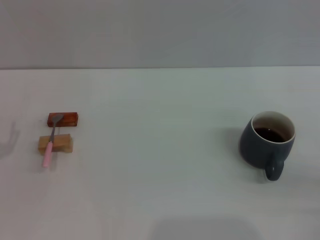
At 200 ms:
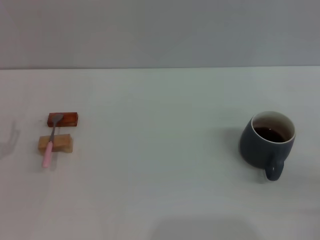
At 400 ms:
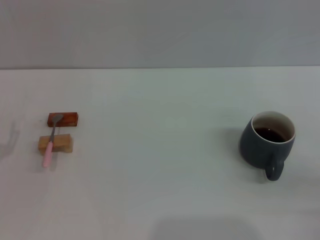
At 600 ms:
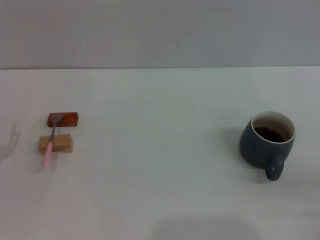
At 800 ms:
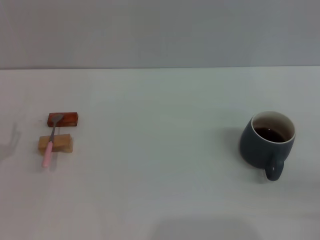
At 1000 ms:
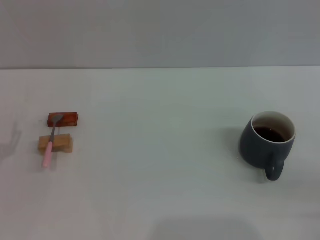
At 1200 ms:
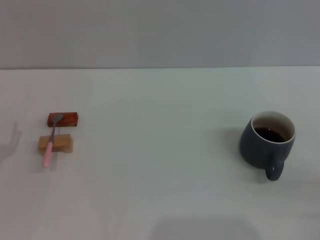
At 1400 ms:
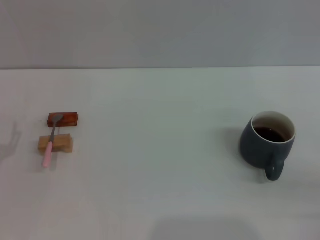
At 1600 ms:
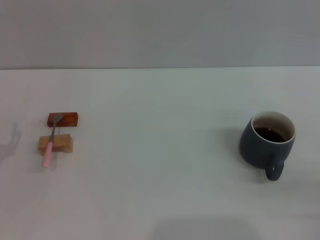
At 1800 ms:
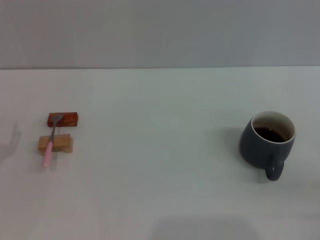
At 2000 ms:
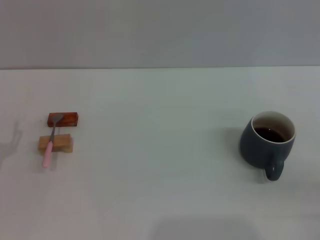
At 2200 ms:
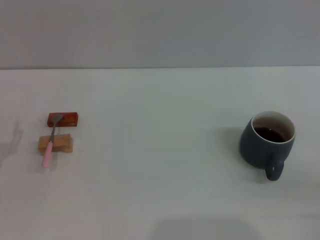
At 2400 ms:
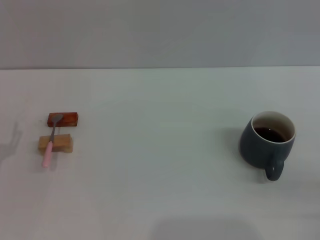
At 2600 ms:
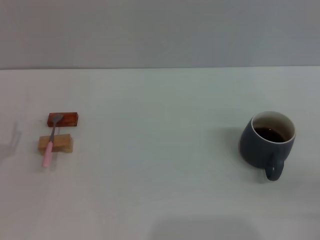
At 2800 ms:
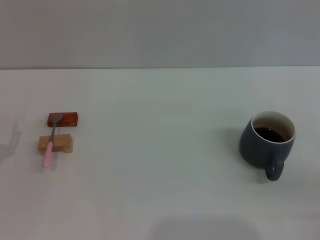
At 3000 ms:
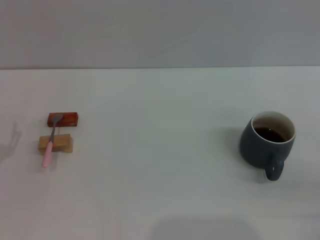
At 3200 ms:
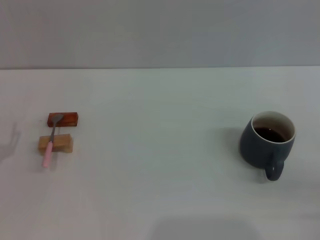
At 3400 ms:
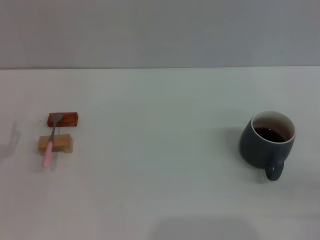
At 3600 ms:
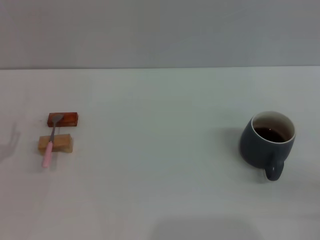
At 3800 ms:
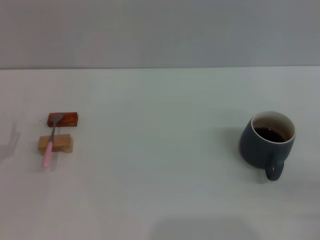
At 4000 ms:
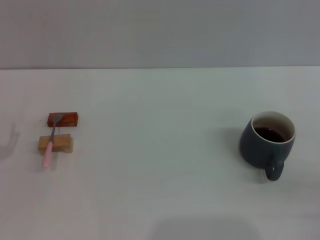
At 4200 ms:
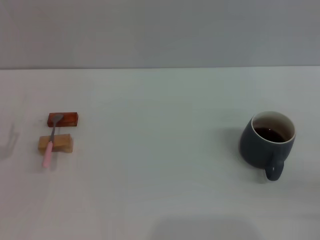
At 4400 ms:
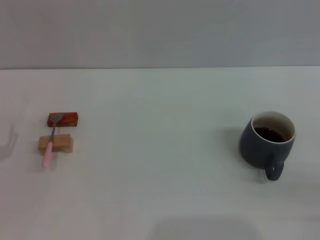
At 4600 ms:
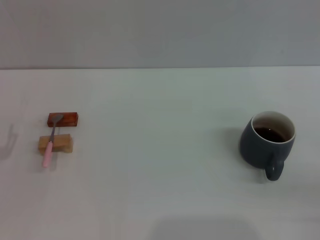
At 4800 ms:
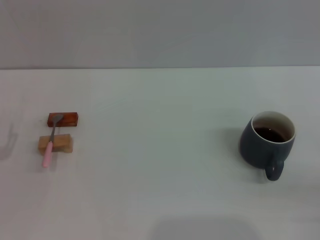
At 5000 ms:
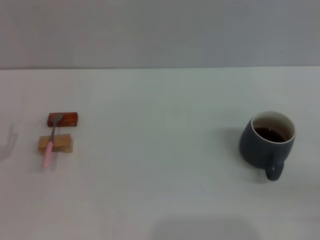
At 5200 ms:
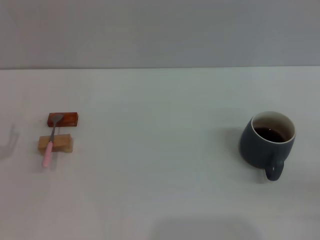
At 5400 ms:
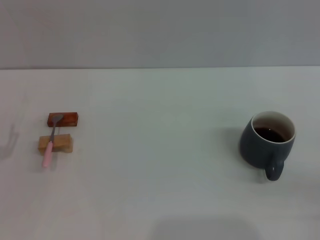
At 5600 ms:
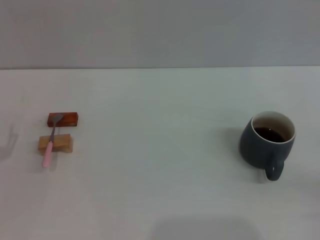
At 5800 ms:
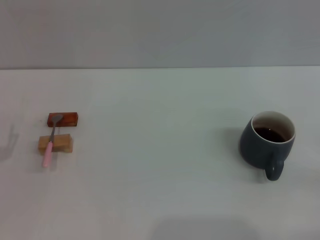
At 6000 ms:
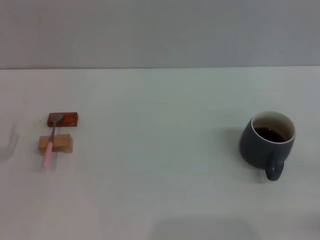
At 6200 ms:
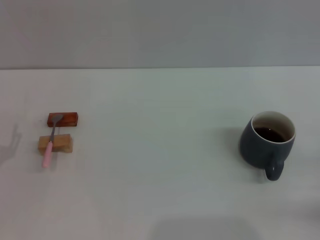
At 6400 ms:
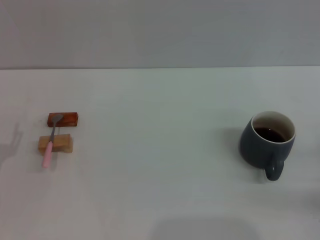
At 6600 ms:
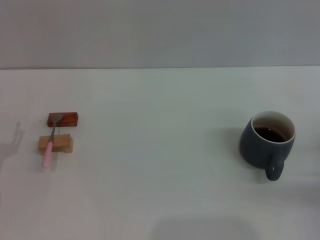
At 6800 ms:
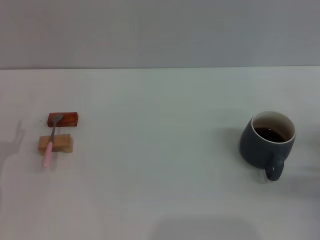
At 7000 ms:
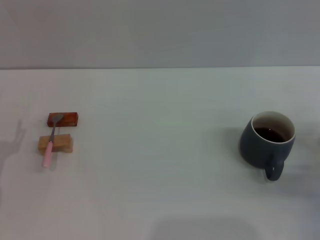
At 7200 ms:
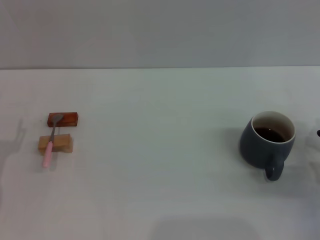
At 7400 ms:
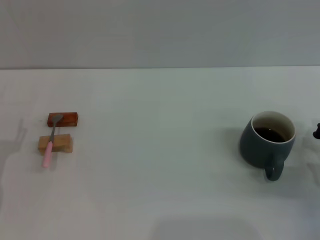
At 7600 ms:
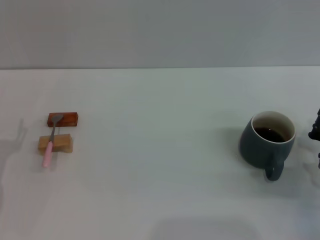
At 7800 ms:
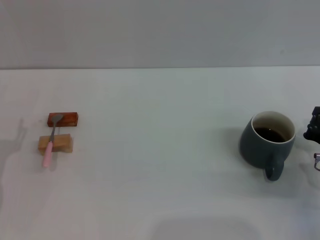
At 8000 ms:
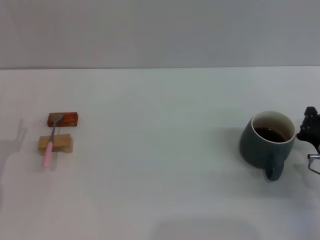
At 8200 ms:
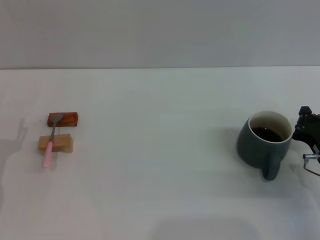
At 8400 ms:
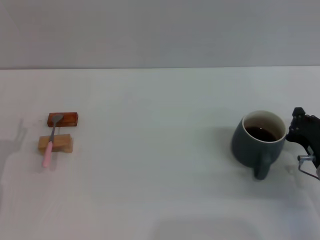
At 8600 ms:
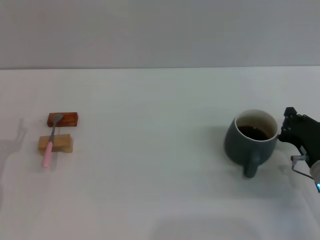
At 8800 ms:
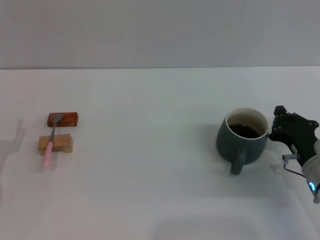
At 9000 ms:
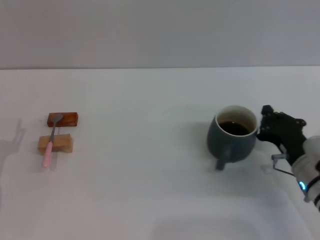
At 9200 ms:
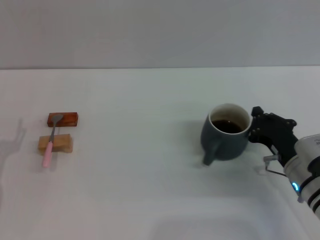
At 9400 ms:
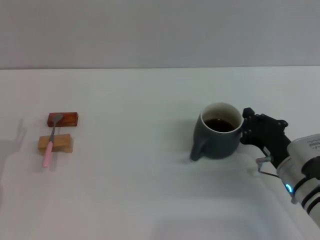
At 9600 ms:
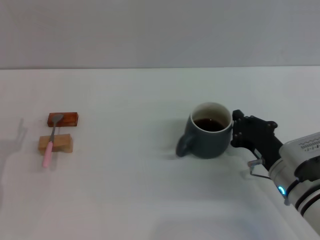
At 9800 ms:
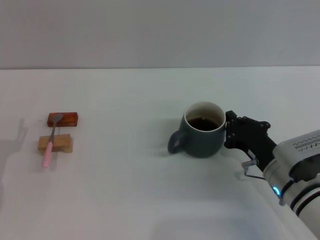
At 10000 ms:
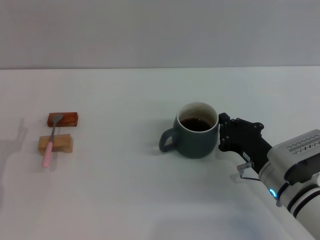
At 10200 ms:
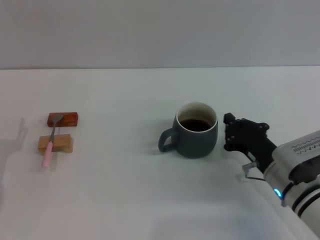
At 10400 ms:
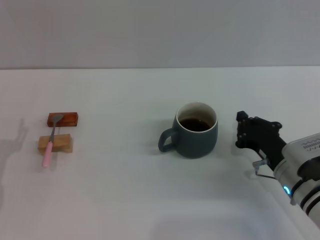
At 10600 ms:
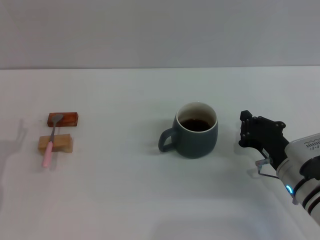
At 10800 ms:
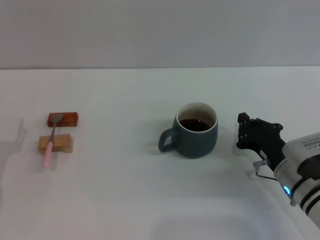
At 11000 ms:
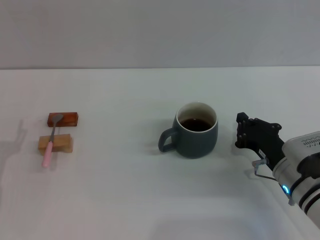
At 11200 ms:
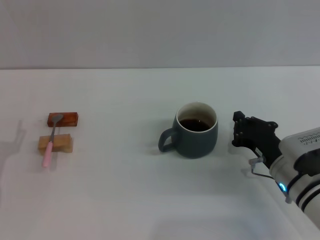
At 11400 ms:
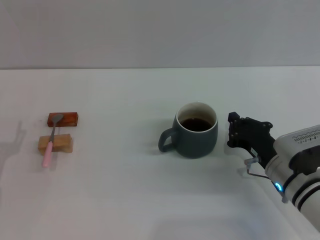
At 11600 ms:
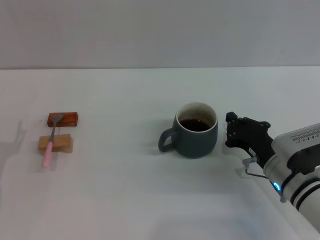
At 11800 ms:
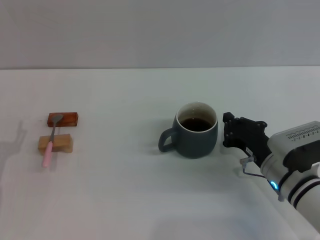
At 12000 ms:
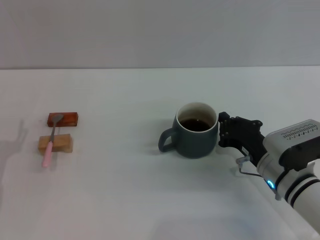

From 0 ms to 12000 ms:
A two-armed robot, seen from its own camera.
Task of the whole recording: Move the grey cup to the center, lift the pink spoon, stir it three times in the cup, and put the spoon into the cup.
From 0 ms to 4400 ms: Both grippers stay about where they are.
From 6000 ms to 7600 ms: The right gripper moves to the left and forward, about 10 cm.
From 7600 ms to 9000 ms: The right gripper travels to the left by approximately 5 cm.
From 9000 ms to 12000 ms: The grippers move only a little.

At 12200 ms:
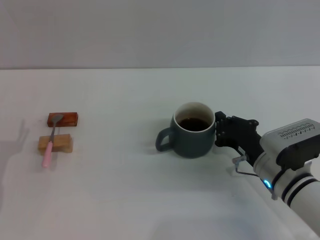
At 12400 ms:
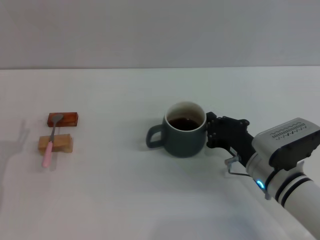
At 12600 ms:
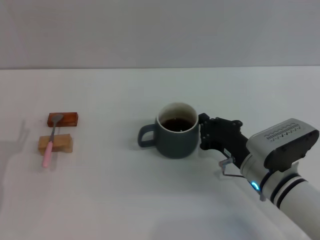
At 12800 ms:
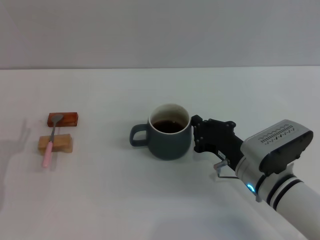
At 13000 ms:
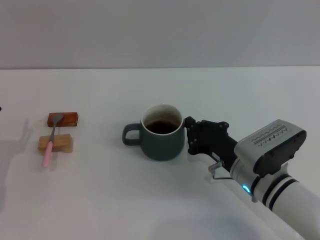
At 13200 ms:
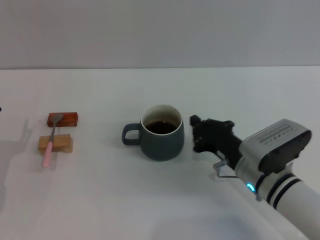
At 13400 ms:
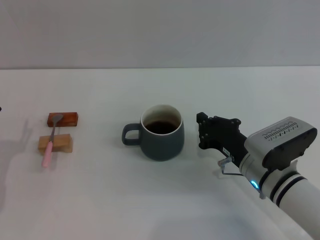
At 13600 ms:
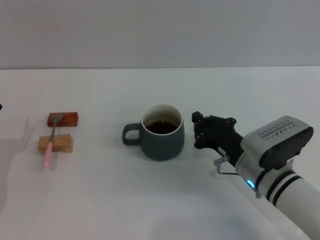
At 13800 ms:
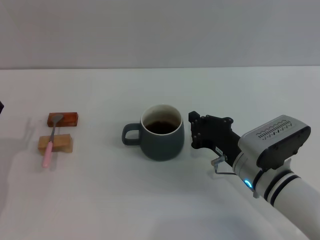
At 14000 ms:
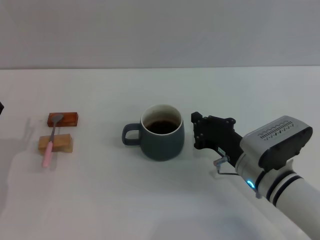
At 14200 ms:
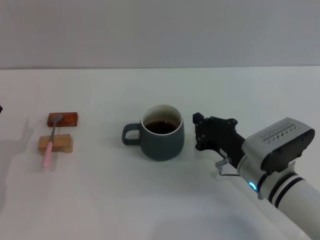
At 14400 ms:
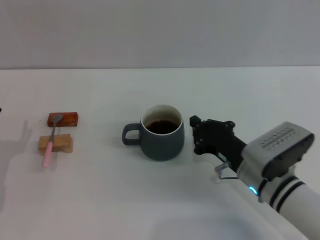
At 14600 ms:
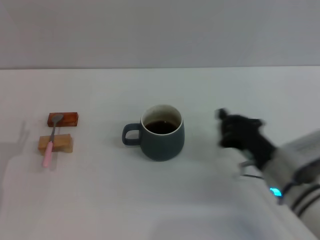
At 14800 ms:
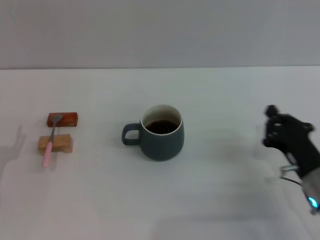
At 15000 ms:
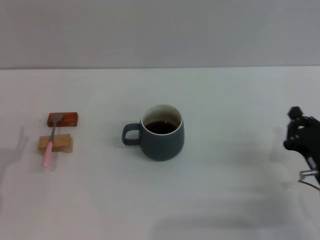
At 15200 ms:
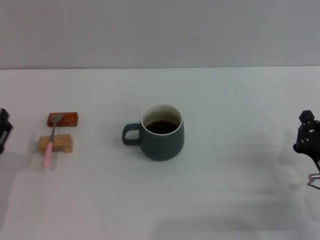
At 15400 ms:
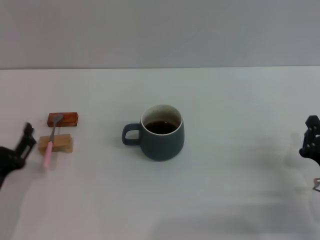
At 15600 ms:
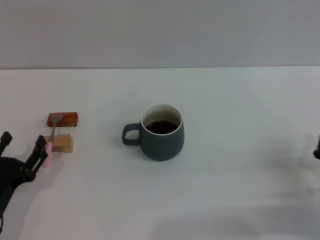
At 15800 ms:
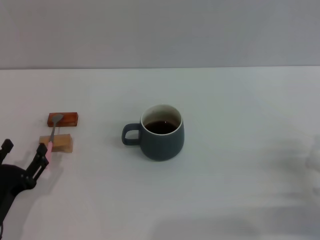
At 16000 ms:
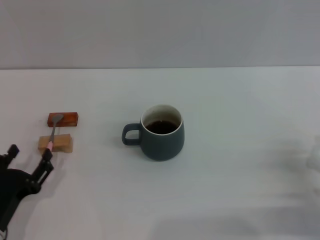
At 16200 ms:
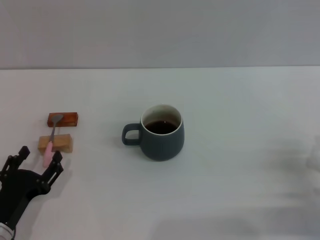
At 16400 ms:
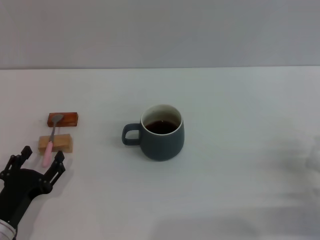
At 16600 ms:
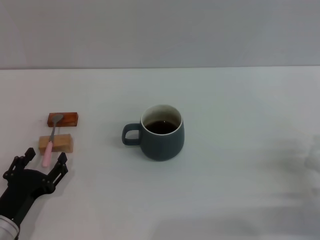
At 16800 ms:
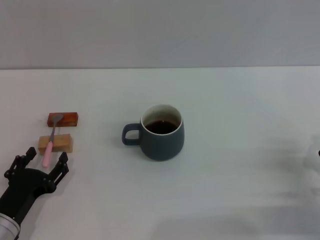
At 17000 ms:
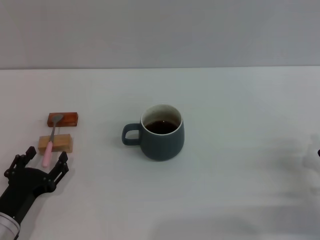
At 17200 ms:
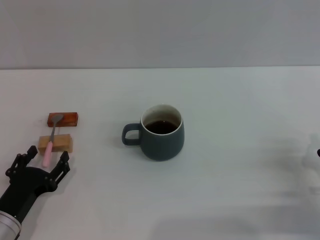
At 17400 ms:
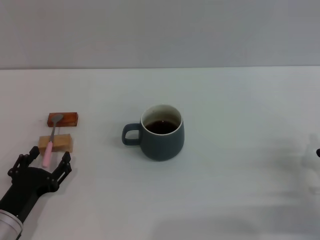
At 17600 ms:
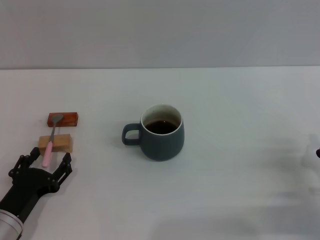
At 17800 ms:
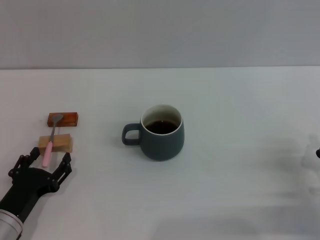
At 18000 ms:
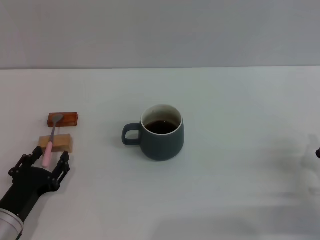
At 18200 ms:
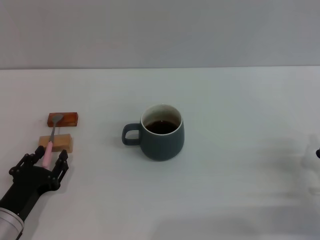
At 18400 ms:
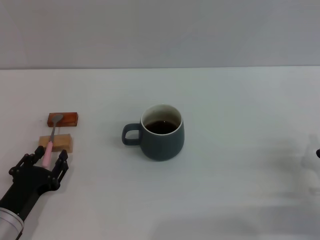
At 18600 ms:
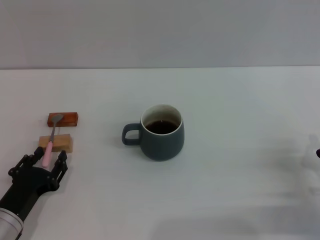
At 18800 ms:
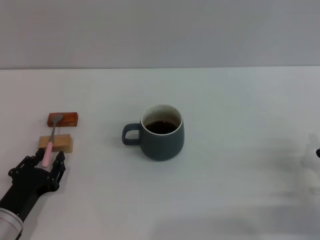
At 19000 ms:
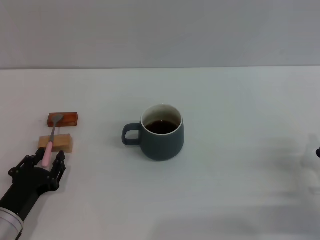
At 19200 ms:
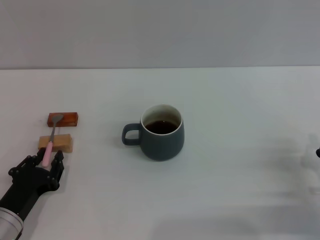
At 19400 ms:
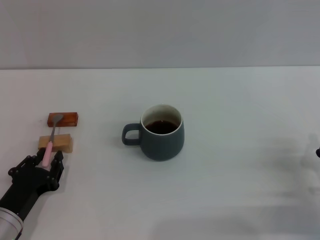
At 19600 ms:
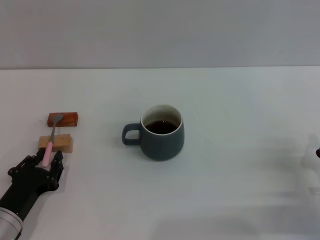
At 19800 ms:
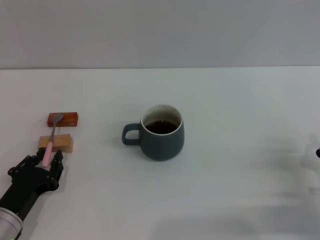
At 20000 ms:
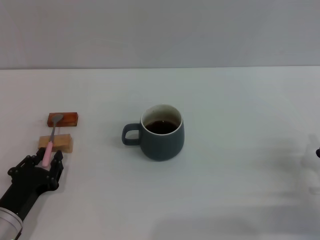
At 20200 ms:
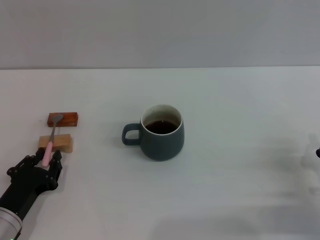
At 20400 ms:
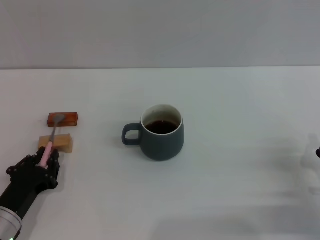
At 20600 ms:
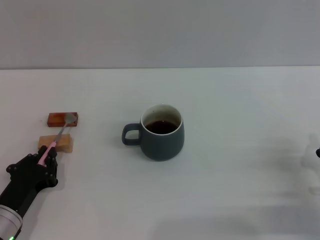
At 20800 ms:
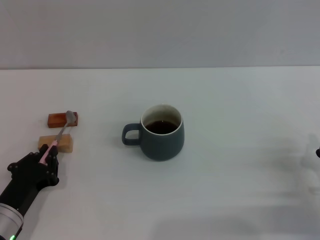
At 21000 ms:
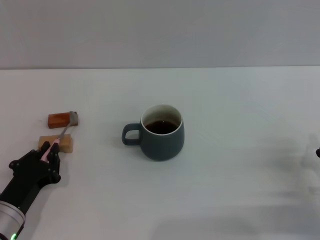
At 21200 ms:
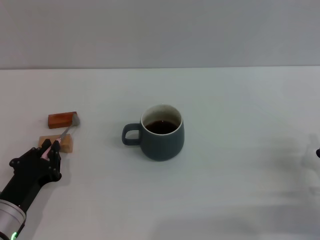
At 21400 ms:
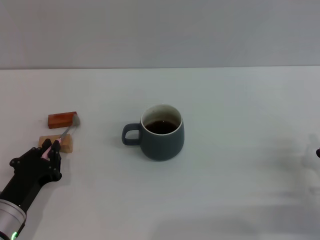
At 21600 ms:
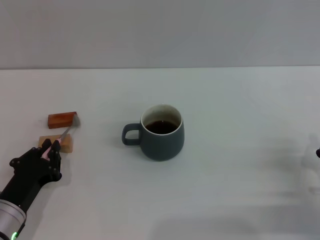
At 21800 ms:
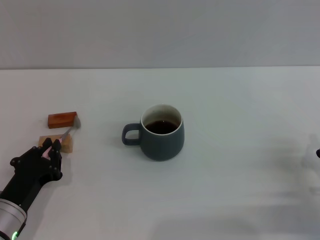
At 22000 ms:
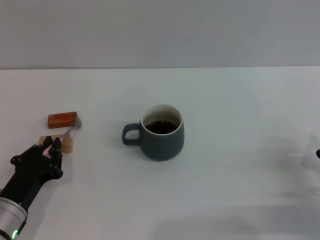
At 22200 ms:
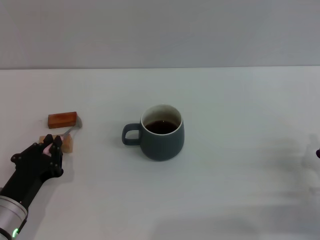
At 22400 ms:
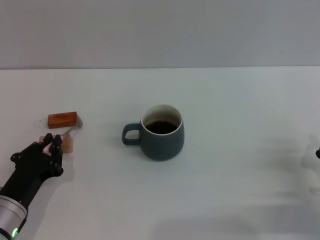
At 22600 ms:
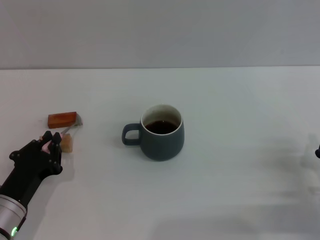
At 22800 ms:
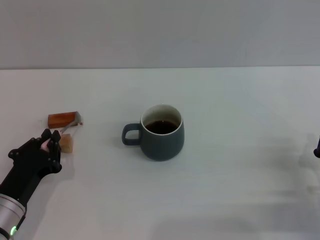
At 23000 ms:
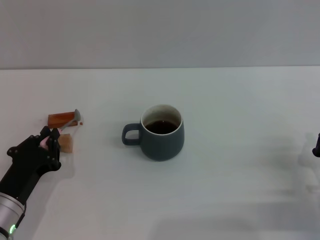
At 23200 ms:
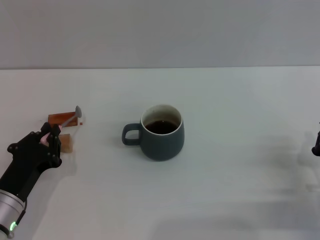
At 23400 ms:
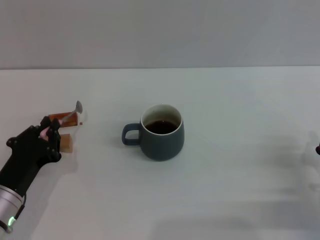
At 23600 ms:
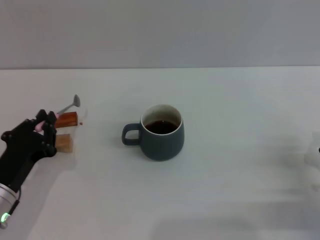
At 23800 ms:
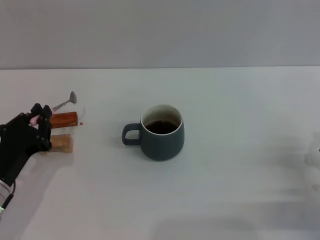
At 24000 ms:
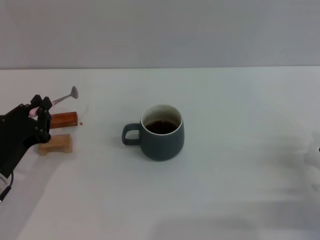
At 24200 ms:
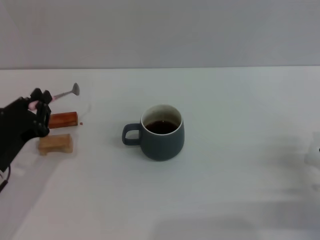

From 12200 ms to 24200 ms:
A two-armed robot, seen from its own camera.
Task of the whole recording: Move the grey cup to the center, lift the pink spoon, stir it three times in the cup, and put the spoon into the cup.
Step, from 12200 ms to 15000 ms: Move the cup with coffee to the center of view with the right gripper.
Step, from 15200 ms to 23600 ms: Pick up the spoon with the left gripper.
From 12200 ms to 13800 ms: There are only small adjustments of the grippers.
From 13800 ms to 15200 ms: The right gripper goes some 15 cm to the right and backward.
From 15200 ms to 16600 ms: The left gripper shifts by about 5 cm.
From 16600 ms to 18200 ms: The two grippers keep their place.
From 18200 ms to 19800 ms: The left gripper closes its fingers.
From 19800 ms to 21200 ms: Both grippers stay put.
From 21200 ms to 22600 ms: Both grippers stay put.
From 22600 ms to 24200 ms: The left gripper is displaced upward by some 5 cm.
